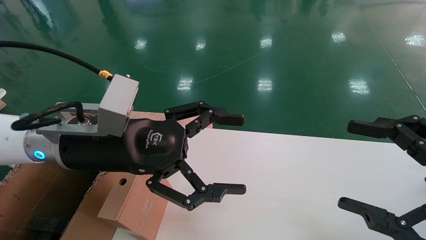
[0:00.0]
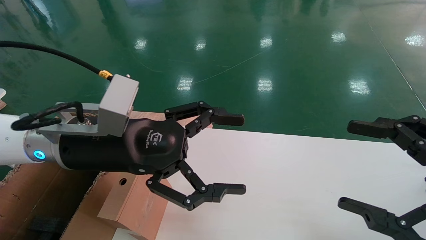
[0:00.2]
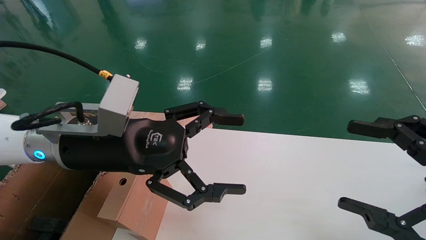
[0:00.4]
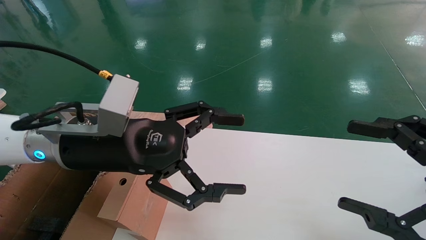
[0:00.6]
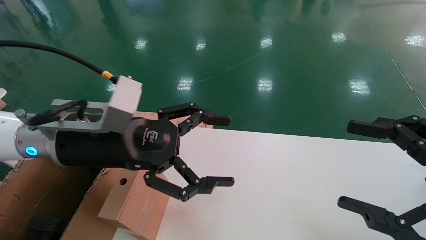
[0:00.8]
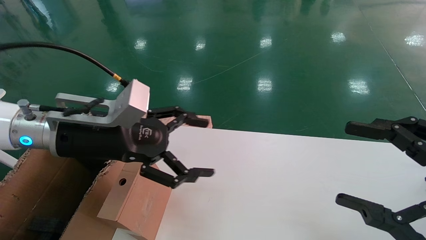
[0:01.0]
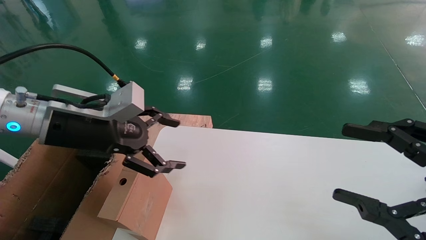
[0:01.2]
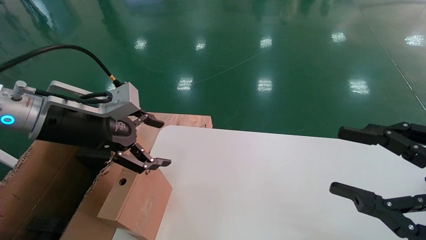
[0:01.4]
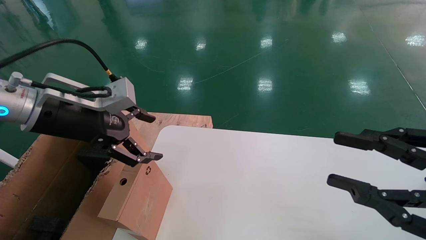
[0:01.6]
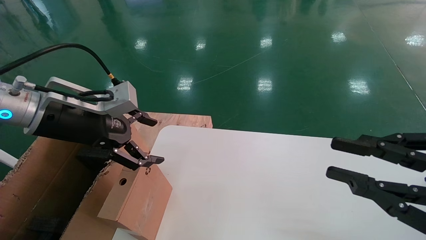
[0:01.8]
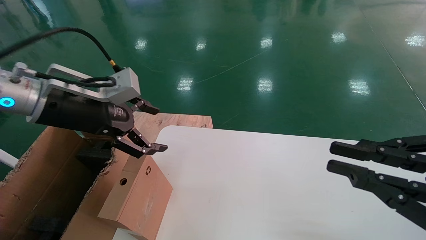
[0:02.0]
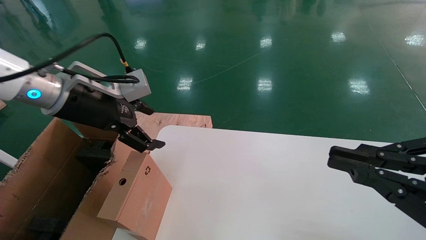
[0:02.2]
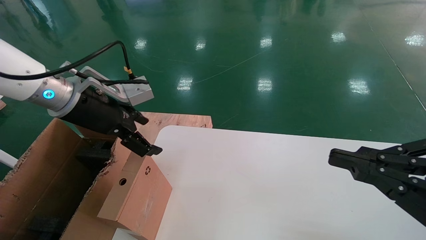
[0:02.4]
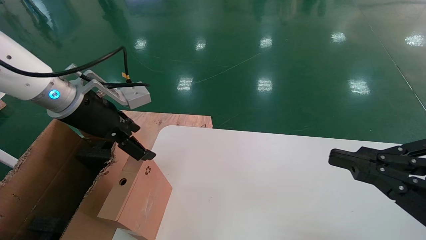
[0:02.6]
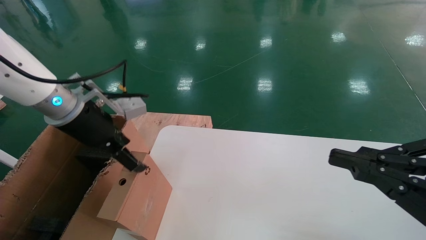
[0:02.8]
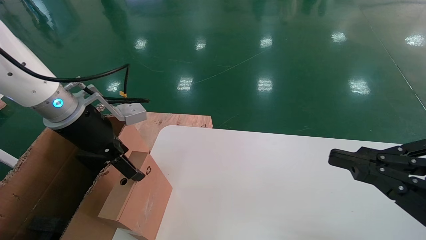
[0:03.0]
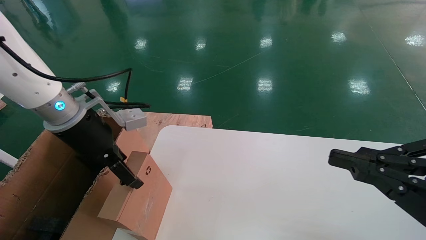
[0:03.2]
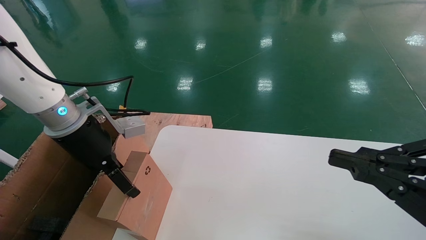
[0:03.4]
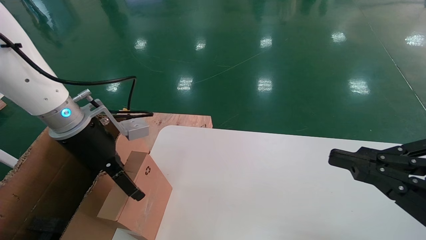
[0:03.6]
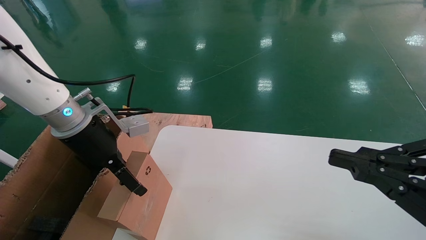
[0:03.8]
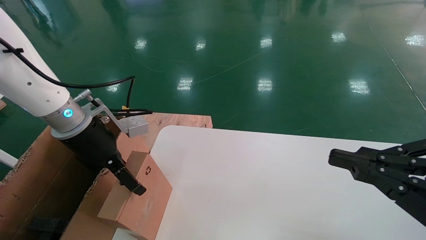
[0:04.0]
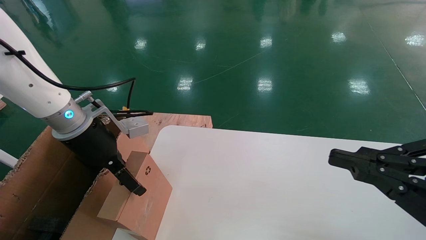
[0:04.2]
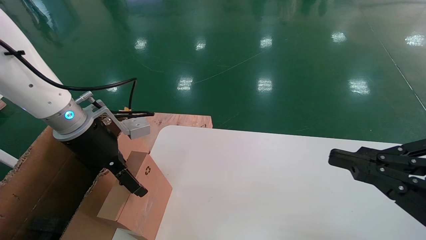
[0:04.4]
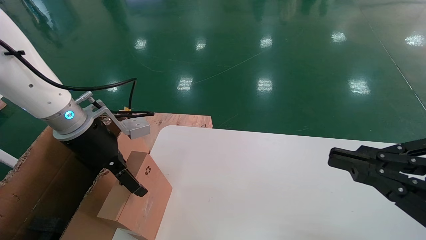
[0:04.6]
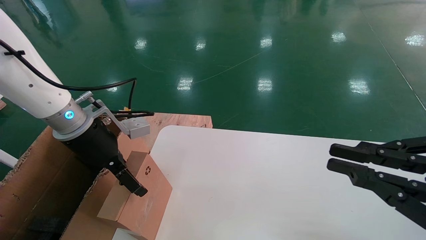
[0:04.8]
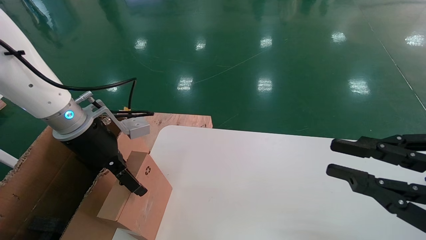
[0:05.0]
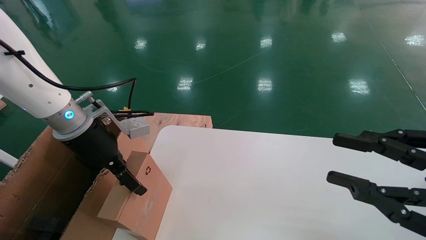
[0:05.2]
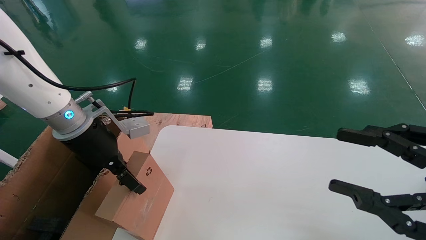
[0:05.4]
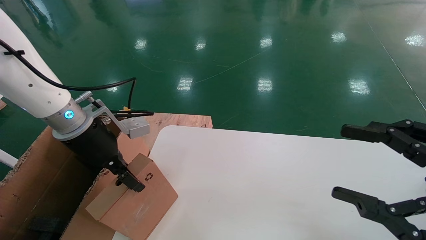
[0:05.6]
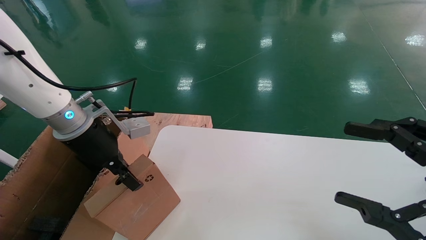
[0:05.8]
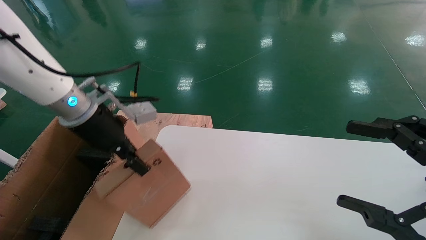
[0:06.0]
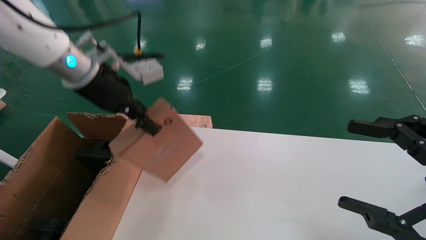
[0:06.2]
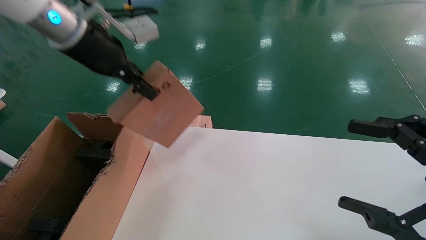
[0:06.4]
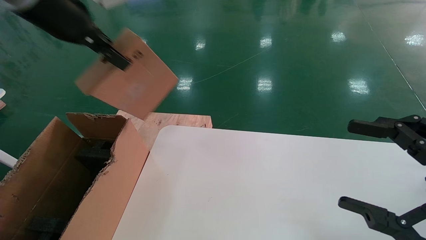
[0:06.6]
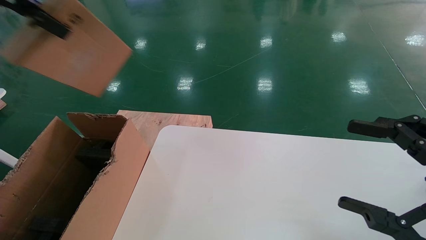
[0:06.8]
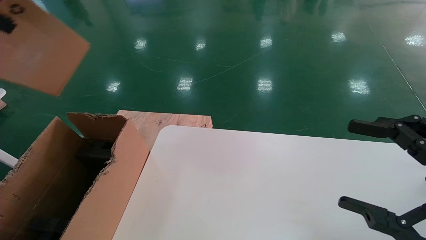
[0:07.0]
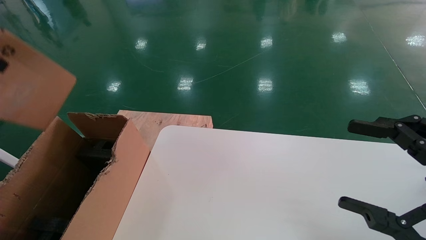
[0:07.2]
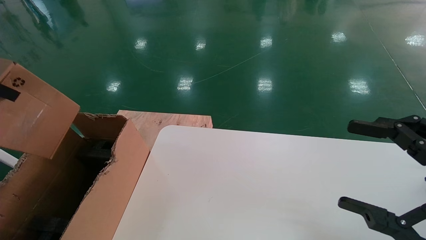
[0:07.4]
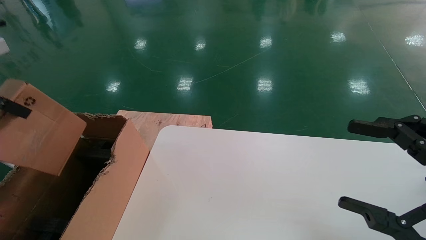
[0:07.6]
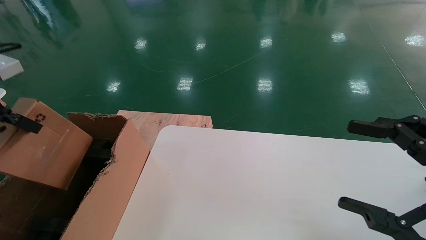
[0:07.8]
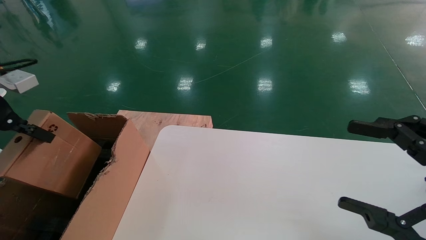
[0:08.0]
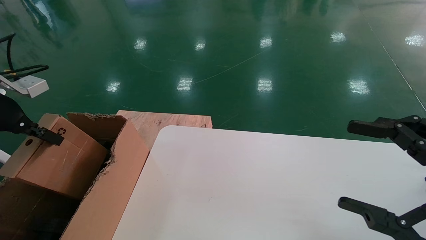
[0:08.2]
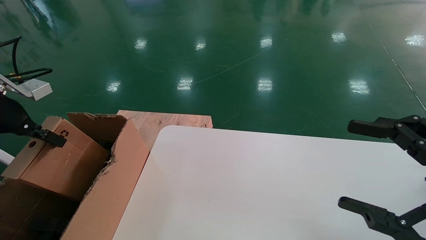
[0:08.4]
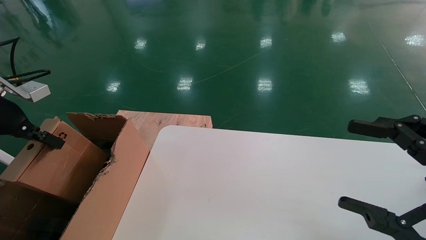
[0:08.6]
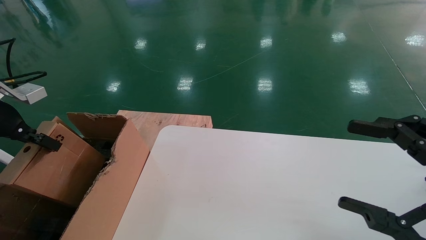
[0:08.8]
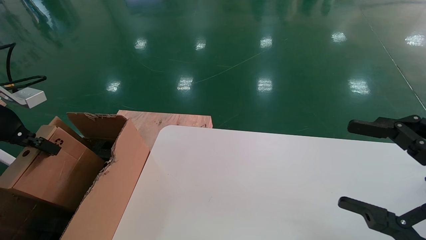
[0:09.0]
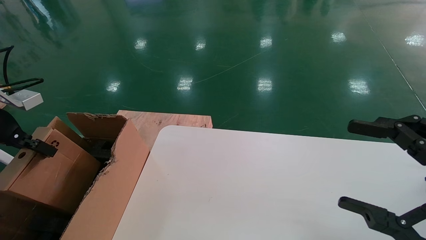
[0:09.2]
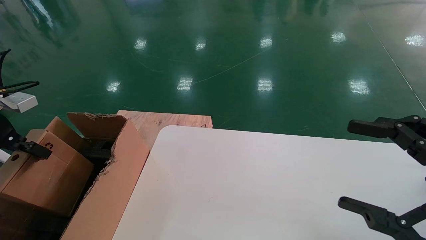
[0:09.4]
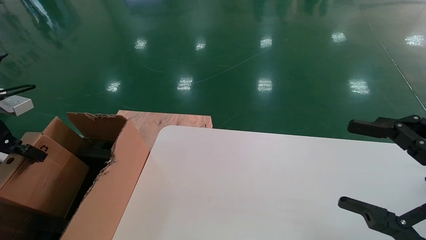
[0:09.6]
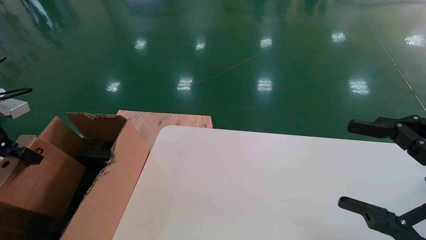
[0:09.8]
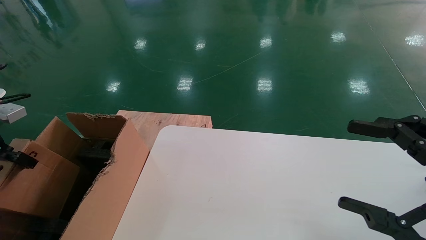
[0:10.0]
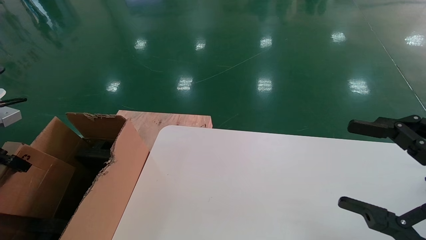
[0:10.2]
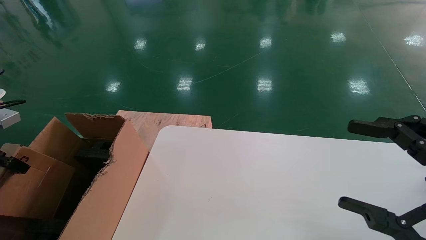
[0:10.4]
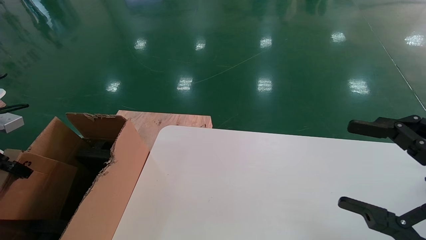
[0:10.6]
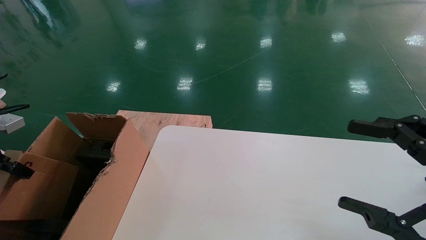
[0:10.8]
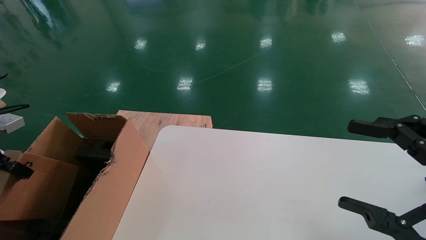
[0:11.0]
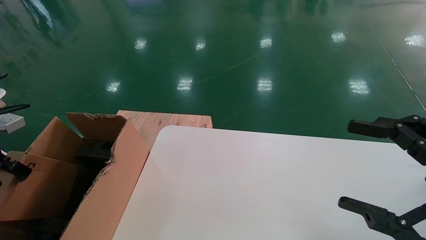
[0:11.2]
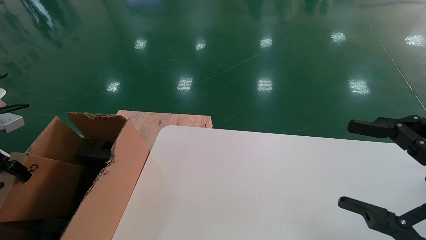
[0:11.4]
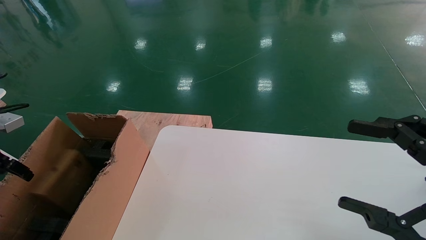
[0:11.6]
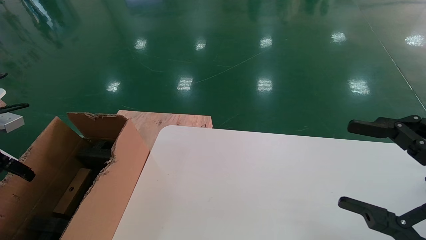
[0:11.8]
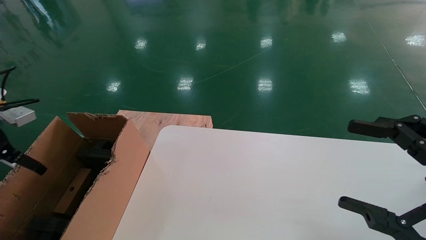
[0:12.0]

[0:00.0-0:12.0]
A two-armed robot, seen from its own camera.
Task of the whole recording: place the small box on the table into the large box on the left.
Step, 0:01.0 to 0:05.8: Pick up the mouse and the power cord paper box.
Step, 0:06.0 to 0:11.8: Place the mouse and the power cord paper box into the container.
0:00.0 to 0:01.6: The left gripper is displaced to the left by some 10 cm; the right gripper closes up.
0:01.6 to 0:03.0: The right gripper closes its fingers.
0:03.0 to 0:04.4: The grippers move only a little.
0:04.4 to 0:06.0: The right gripper opens its fingers; the left gripper changes place by some 5 cm, and closes.
0:06.0 to 0:07.6: The left gripper is displaced to the left, backward and upward by some 25 cm.
0:07.6 to 0:09.0: The left gripper shifts some 10 cm downward.
0:09.0 to 0:10.4: The left gripper goes approximately 5 cm to the left.
0:10.4 to 0:12.0: The left gripper opens.

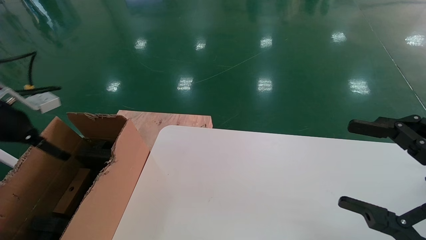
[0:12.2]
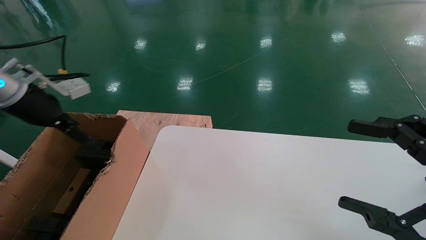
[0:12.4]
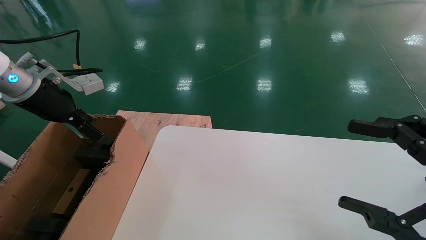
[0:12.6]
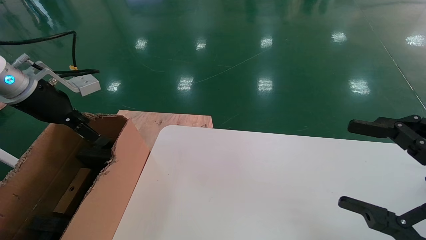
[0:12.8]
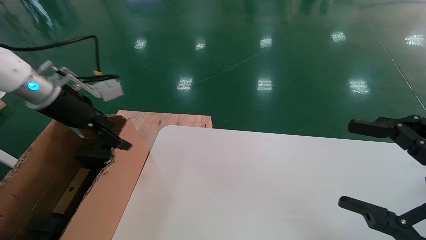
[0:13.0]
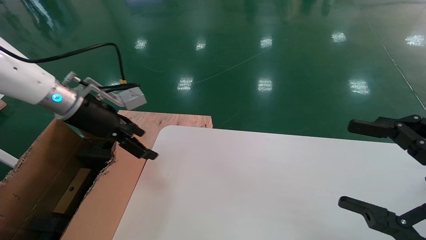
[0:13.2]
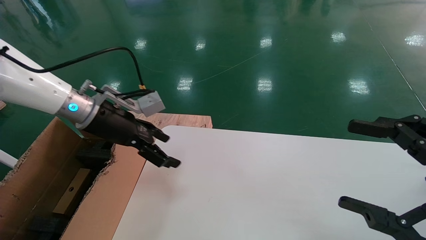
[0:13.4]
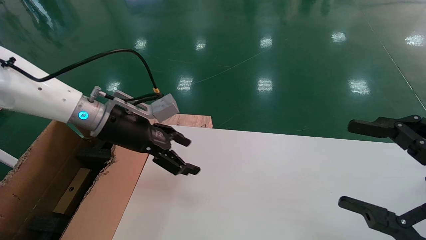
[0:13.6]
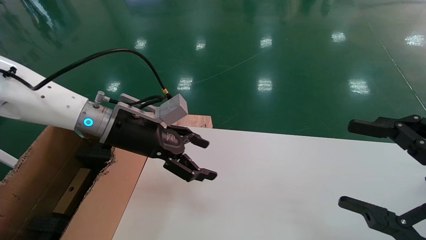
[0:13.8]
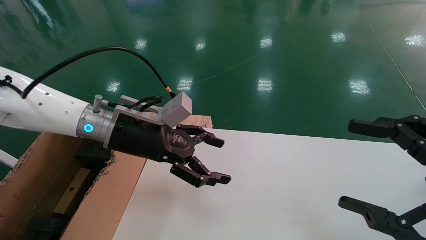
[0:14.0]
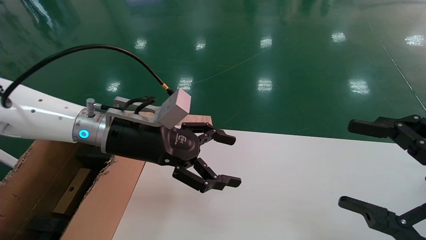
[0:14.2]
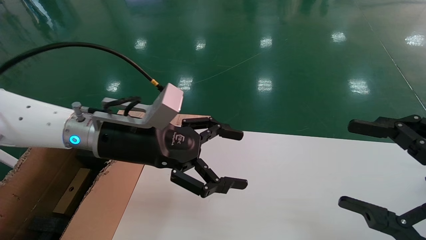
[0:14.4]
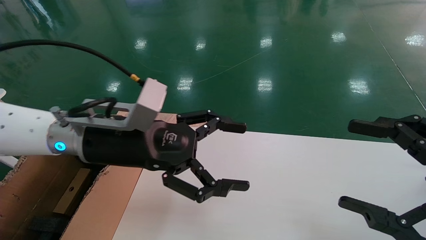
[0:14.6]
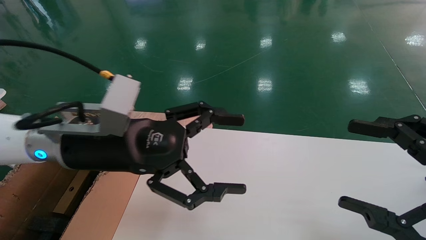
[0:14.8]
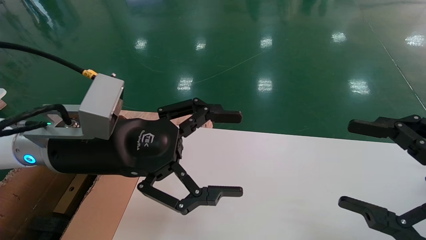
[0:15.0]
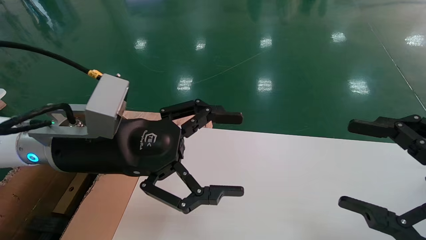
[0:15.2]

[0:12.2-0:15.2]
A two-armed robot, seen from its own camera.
Task of the whole recording: place the small box on the table into the large box on the left.
0:12.2 to 0:13.8: The left gripper travels to the right by roughly 25 cm.
0:13.8 to 0:15.2: The left gripper heads backward, covering approximately 10 cm.
